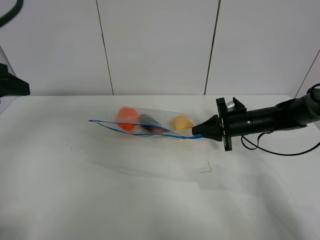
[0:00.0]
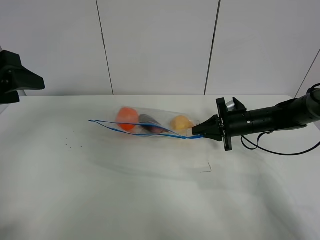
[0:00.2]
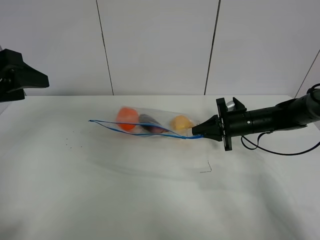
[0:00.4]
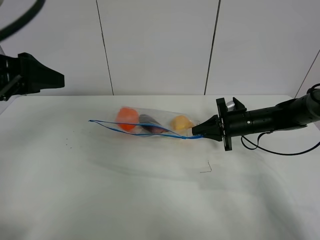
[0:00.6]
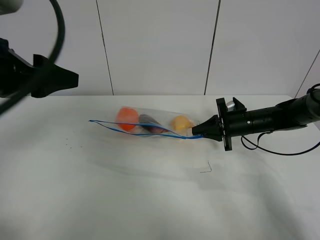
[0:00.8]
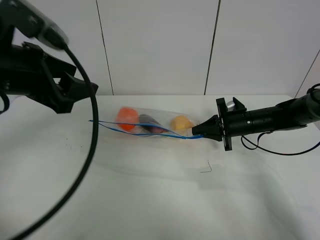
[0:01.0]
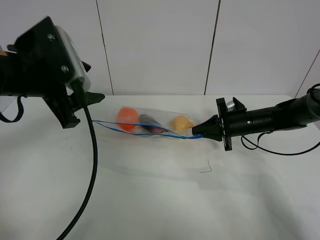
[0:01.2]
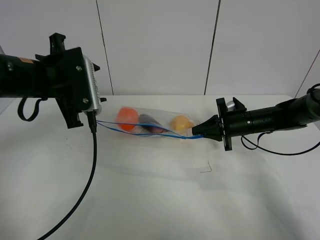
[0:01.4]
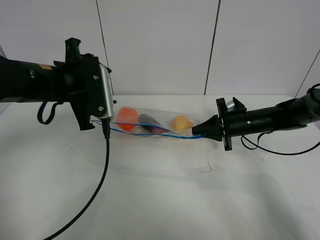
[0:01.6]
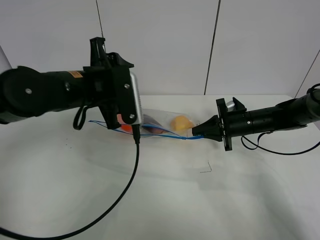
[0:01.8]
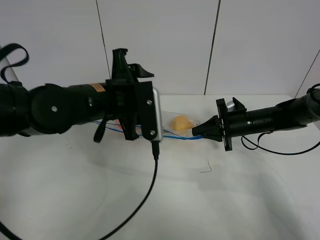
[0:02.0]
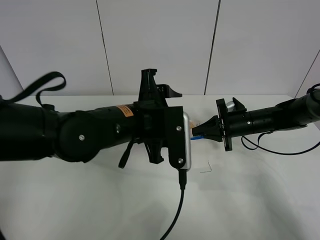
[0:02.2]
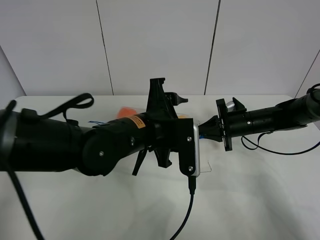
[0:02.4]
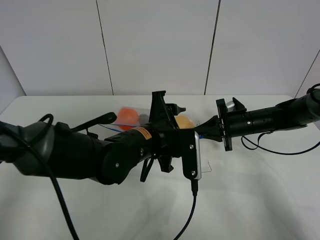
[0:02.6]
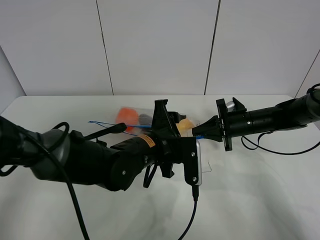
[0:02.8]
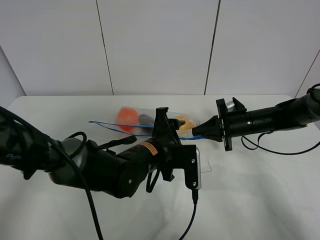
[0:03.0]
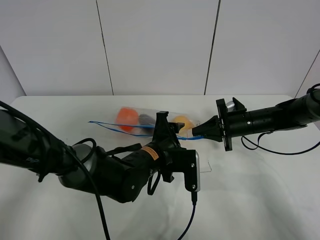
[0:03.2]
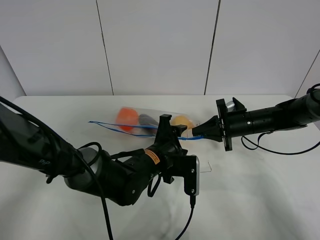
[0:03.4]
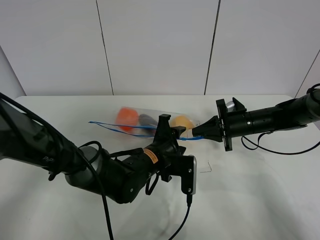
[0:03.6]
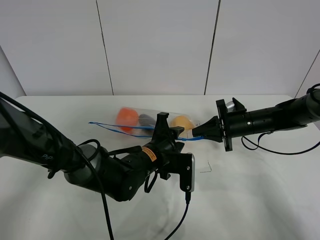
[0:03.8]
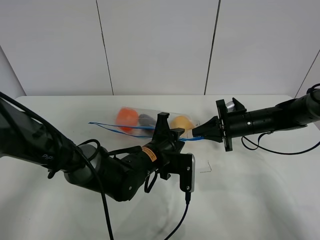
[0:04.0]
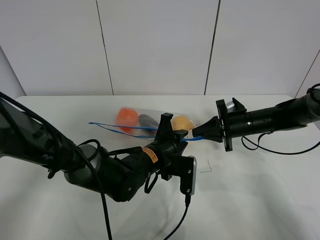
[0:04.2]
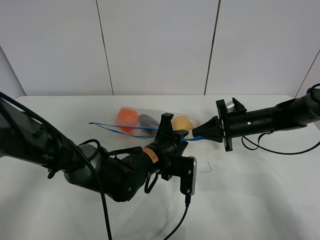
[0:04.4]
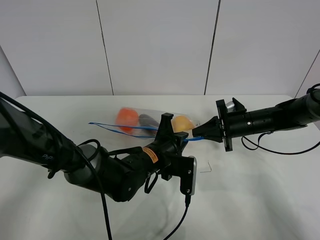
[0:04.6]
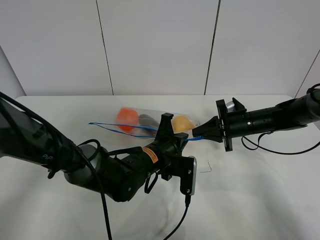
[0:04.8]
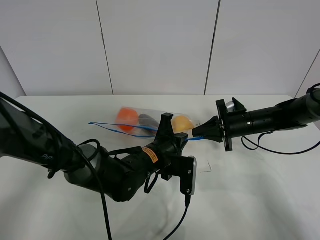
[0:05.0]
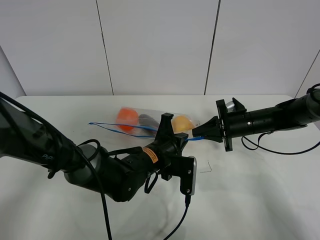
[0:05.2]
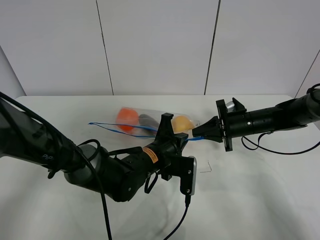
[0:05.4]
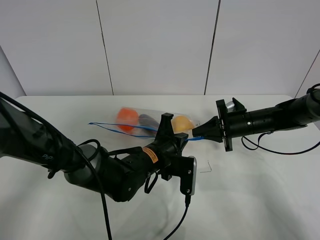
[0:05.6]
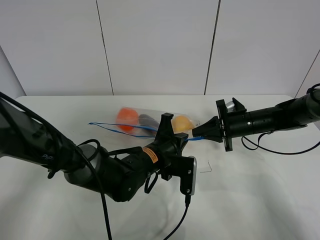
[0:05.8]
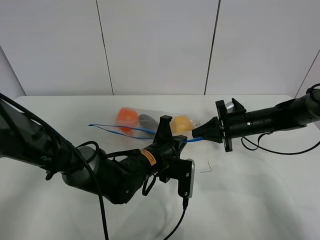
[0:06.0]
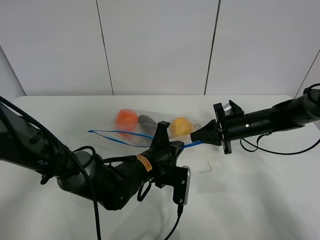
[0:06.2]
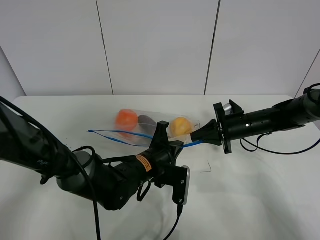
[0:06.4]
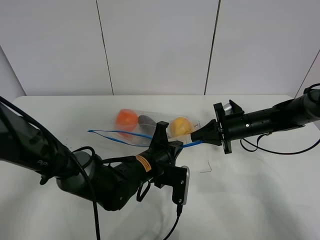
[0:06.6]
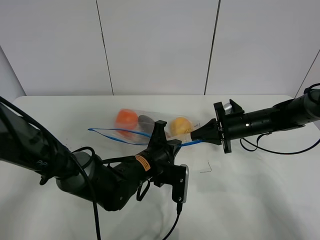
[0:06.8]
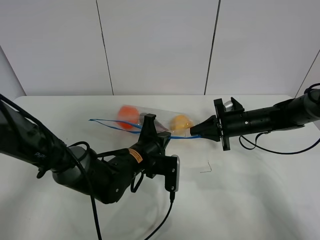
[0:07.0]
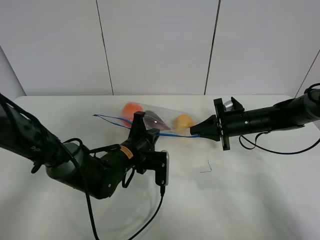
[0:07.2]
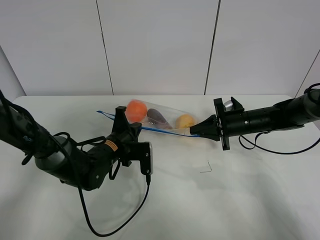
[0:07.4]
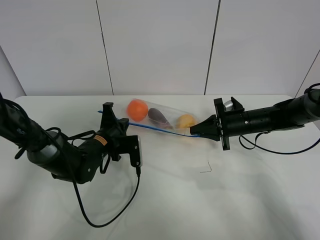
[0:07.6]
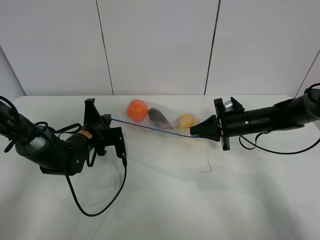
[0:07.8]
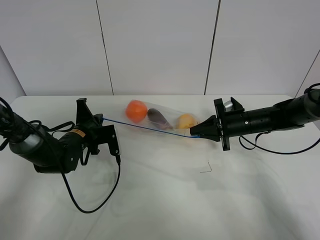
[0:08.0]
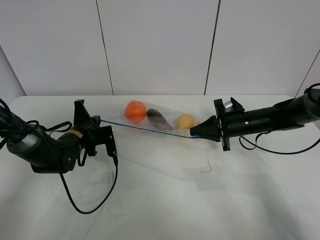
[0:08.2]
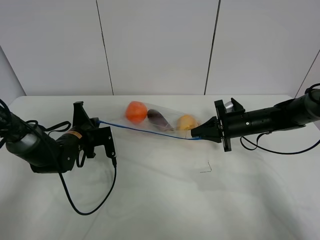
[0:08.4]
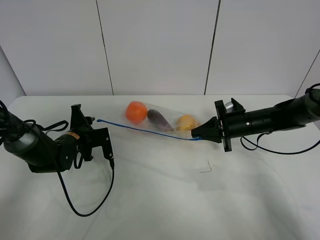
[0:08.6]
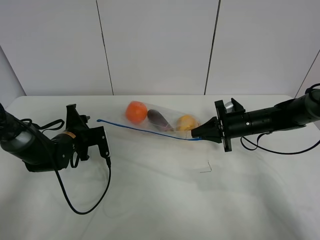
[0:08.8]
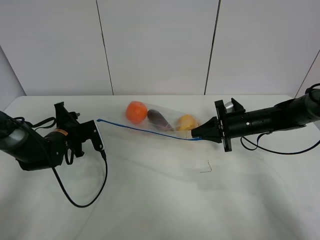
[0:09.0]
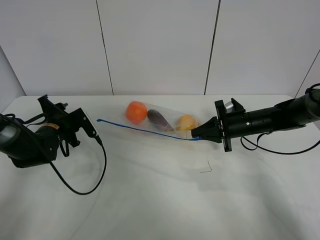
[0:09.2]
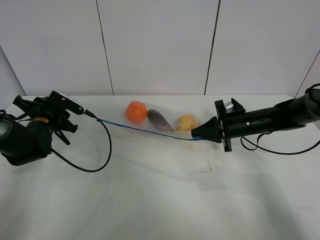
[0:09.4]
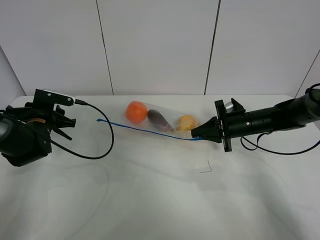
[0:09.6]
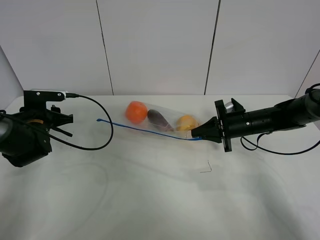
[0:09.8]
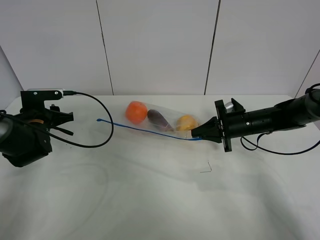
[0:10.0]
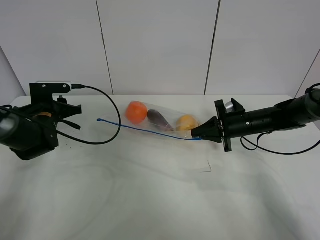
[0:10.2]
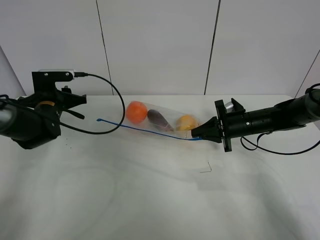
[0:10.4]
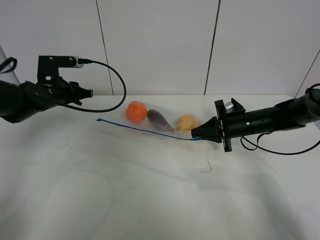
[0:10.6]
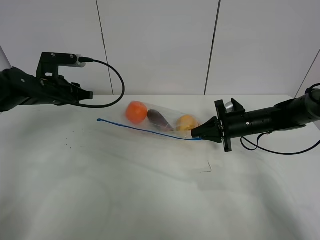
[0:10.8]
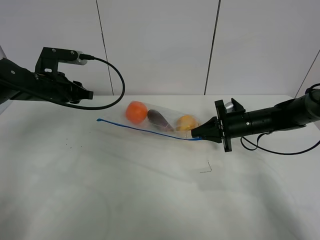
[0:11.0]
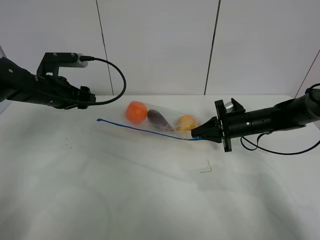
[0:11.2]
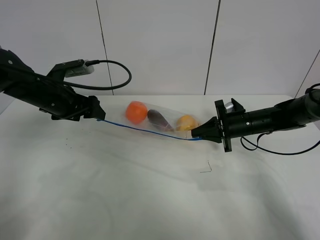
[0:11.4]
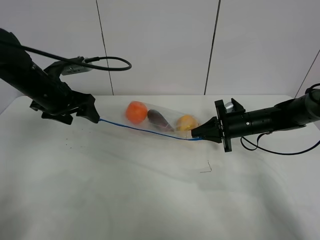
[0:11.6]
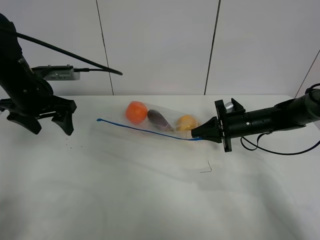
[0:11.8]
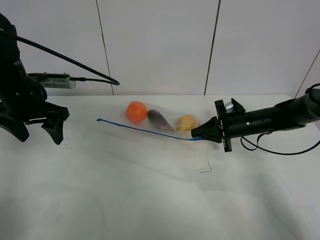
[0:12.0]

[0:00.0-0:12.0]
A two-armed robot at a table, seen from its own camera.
Step, 0:00.0 to 0:08.8: Pull the fruit bag with left gripper.
0:00.0 to 0:01.6: The left gripper shifts some 15 cm to the right, forward and downward.
0:01.6 to 0:03.0: The left gripper is displaced to the right and downward by approximately 20 cm.
0:03.0 to 0:04.4: The left gripper closes.
0:04.4 to 0:06.0: The left gripper closes its fingers.
0:06.0 to 0:07.6: The left gripper shifts roughly 15 cm to the left and forward.
0:07.6 to 0:09.0: The left gripper goes approximately 10 cm to the left, and opens.
0:09.0 to 0:10.4: The left gripper moves upward, some 5 cm.
0:10.4 to 0:12.0: The left gripper heads upward and backward, covering about 10 cm, and opens its fingers.

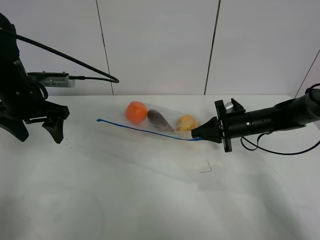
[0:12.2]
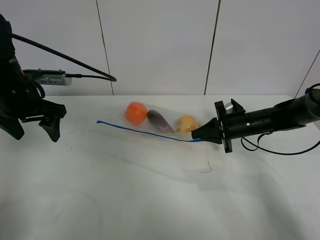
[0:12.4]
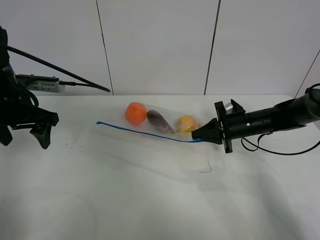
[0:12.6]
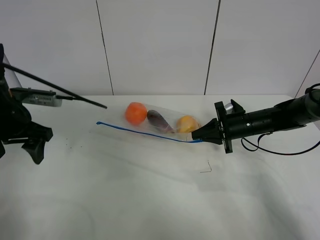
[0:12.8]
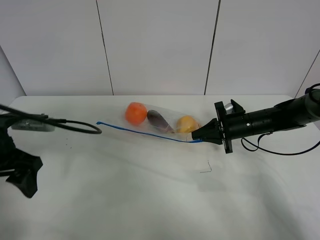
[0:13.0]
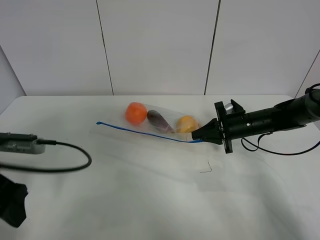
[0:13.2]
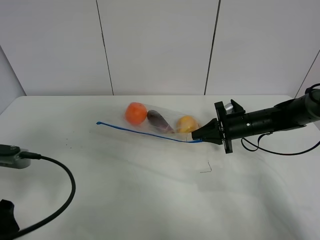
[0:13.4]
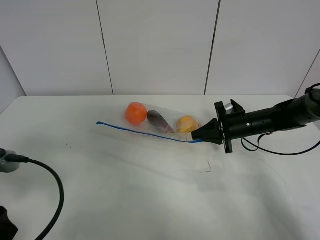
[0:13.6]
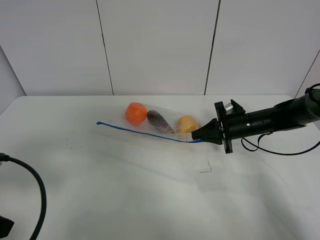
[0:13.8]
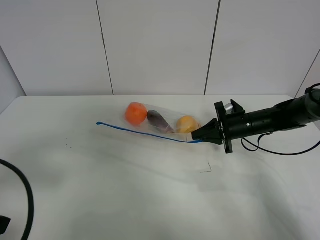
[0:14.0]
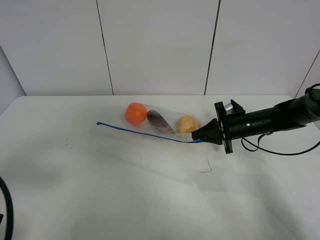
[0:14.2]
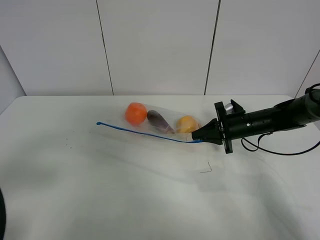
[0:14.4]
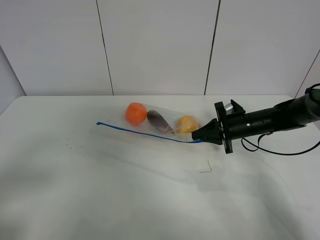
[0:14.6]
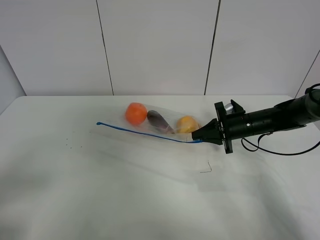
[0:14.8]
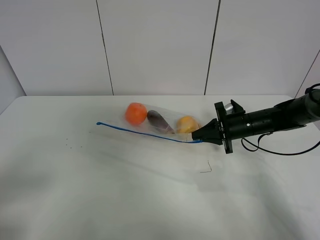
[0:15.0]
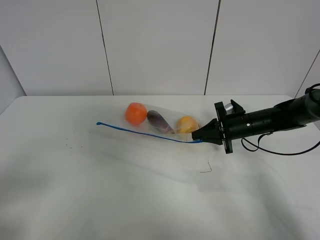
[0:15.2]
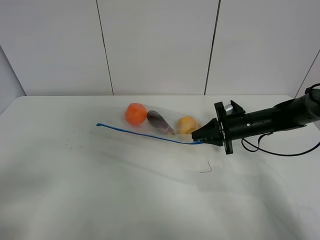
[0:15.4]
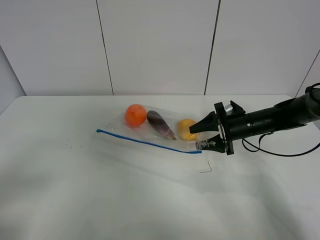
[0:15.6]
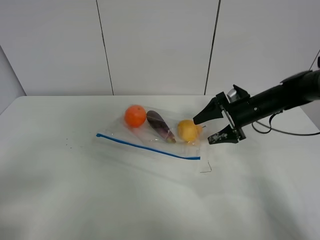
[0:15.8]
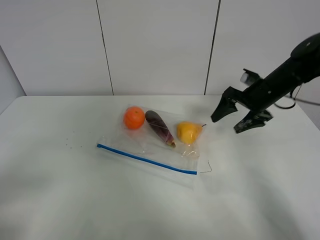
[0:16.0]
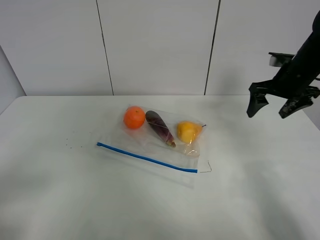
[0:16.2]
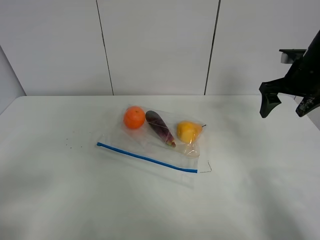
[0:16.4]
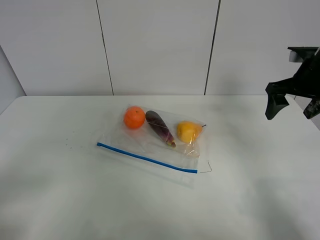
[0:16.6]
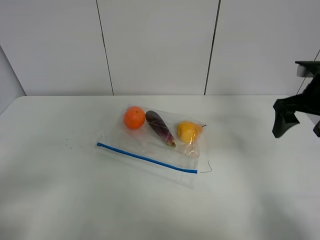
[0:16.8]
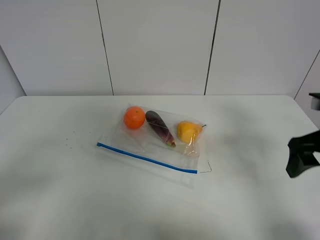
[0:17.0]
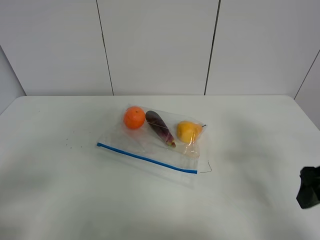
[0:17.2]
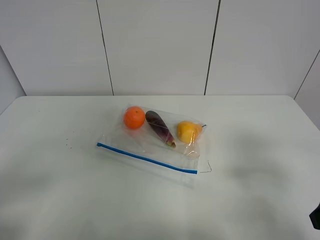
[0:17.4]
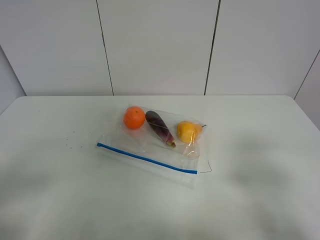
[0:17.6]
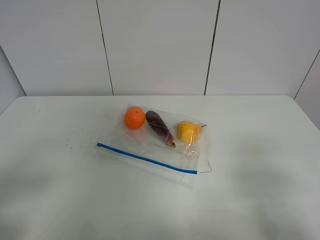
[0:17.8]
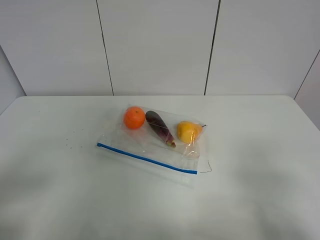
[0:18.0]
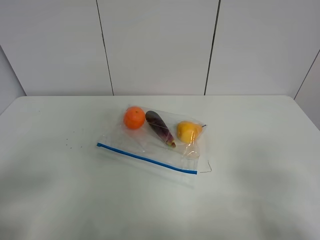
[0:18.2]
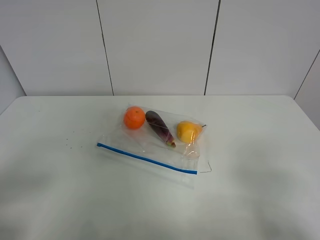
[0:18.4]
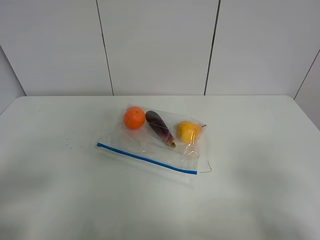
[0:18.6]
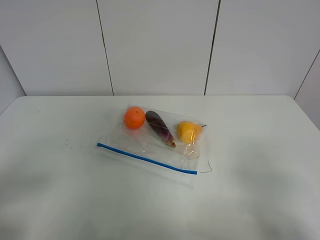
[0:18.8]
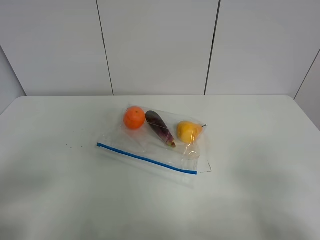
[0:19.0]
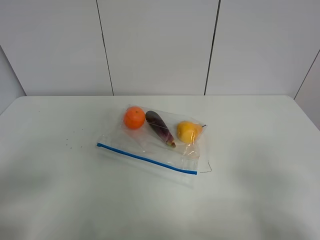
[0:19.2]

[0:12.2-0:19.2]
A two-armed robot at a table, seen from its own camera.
Step, 0:12.2 to 0:15.8: Place the fruit bag with right gripper.
0:12.2 to 0:13.6: The left gripper shifts roughly 20 cm backward.
0:13.6 to 0:15.0: The left gripper goes about 10 cm backward.
0:15.0 to 0:16.4: The right gripper moves upward and to the right, about 20 cm, and opens.
0:16.4 to 0:17.8: The right gripper is displaced backward by some 35 cm.

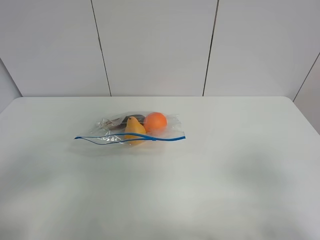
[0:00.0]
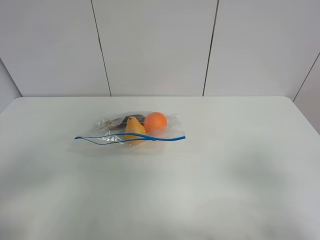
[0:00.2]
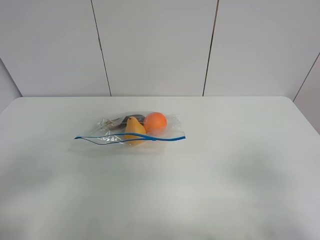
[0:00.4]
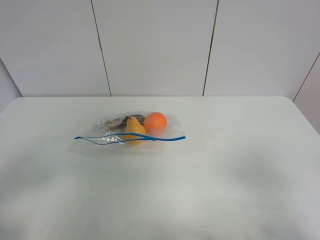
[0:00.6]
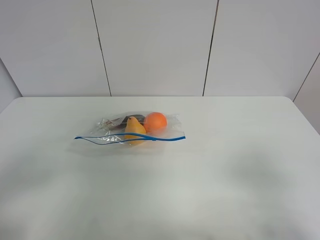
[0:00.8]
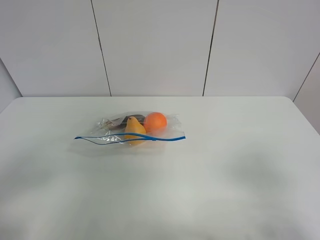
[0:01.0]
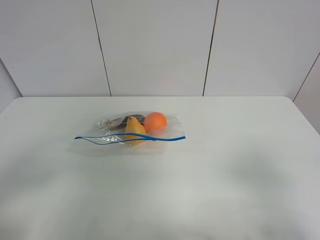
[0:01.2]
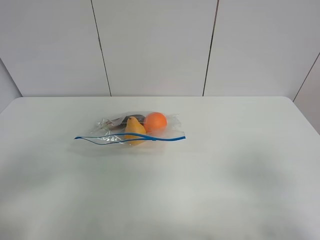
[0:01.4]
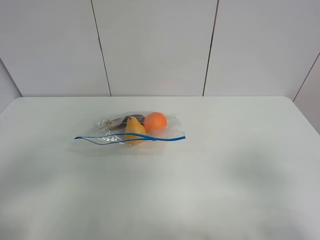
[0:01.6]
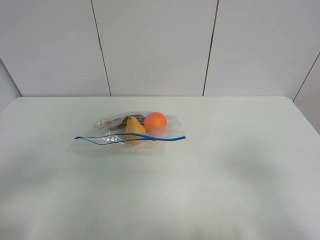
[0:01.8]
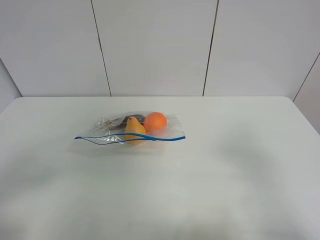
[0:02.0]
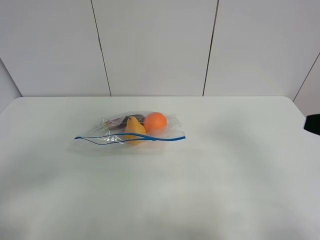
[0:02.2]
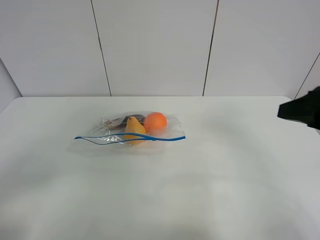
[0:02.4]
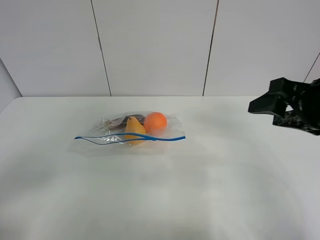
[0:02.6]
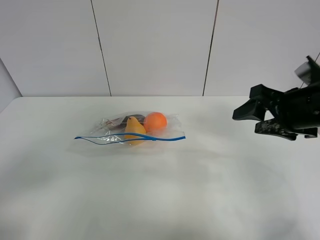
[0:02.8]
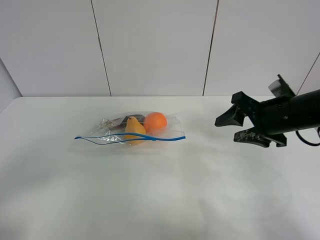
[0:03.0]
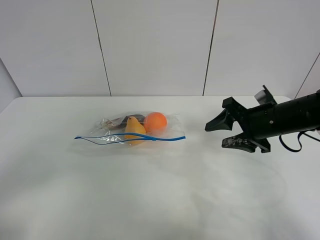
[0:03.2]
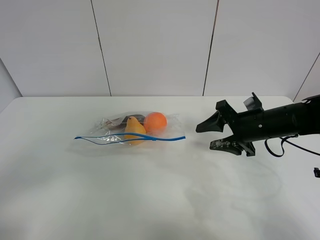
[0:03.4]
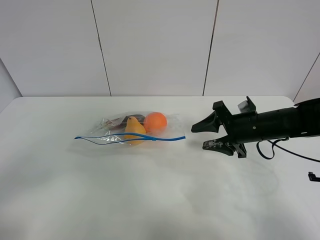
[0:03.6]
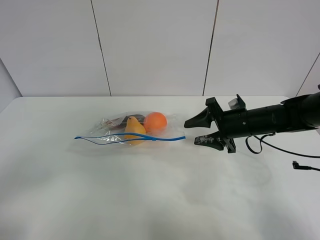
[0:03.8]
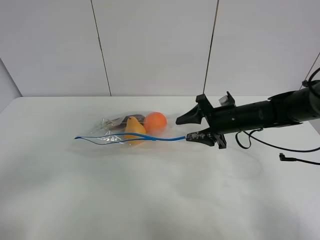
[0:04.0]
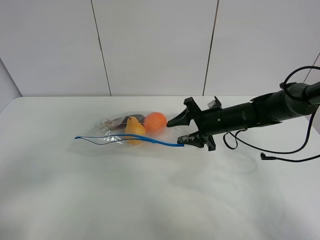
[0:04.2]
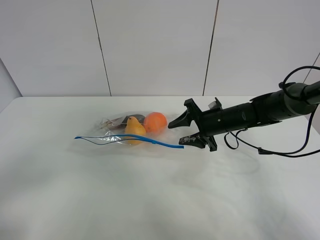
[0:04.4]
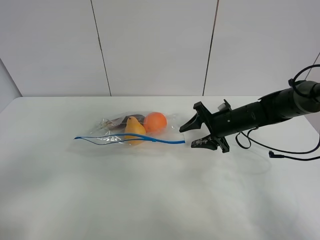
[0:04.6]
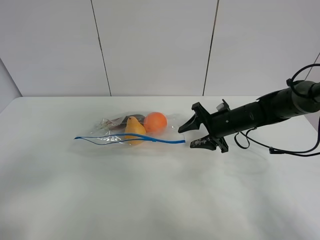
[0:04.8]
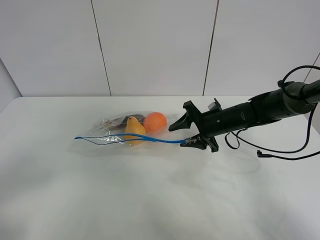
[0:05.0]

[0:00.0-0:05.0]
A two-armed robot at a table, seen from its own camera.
0:00.0 to 0:01.6: The two grippers keep their place.
0:01.6 to 0:03.4: The right gripper shifts some 30 cm forward.
0:03.4 to 0:05.0: The right gripper moves forward, to the left and downward, roughly 10 cm.
